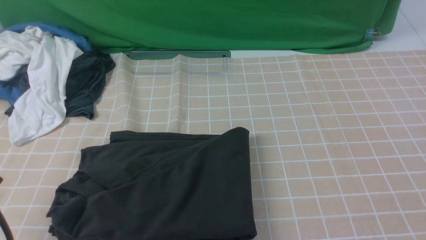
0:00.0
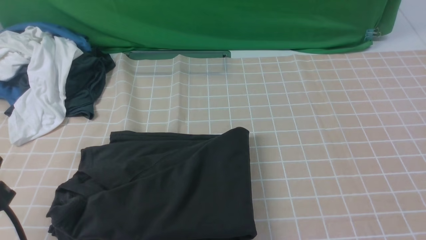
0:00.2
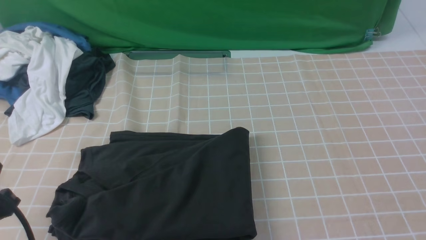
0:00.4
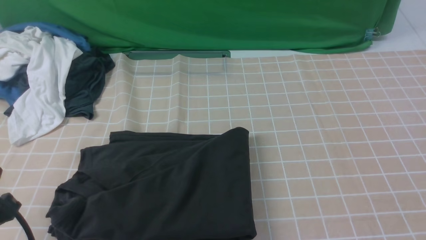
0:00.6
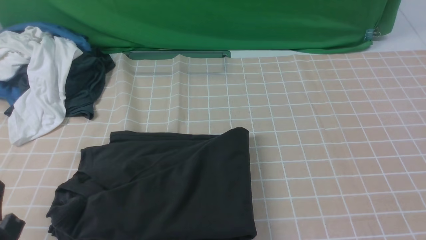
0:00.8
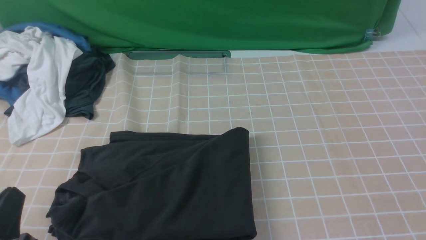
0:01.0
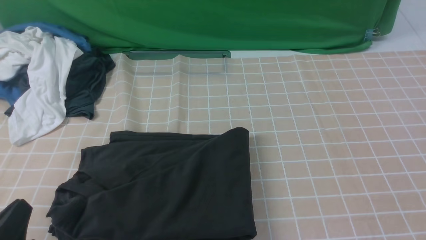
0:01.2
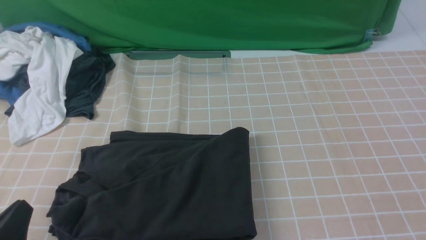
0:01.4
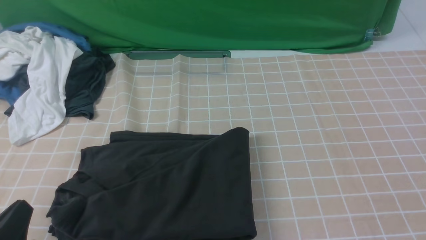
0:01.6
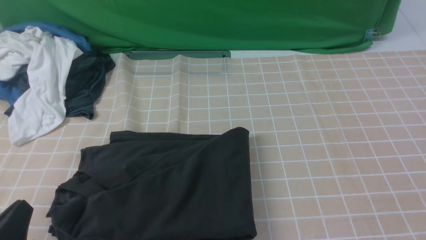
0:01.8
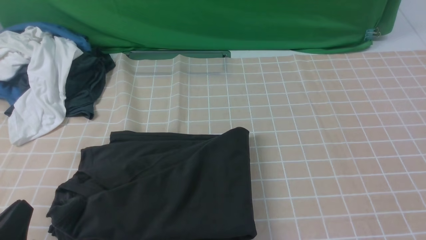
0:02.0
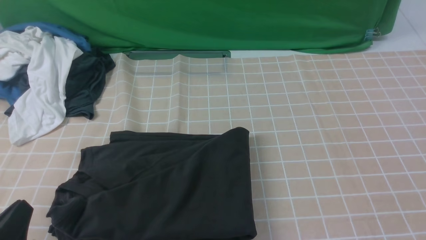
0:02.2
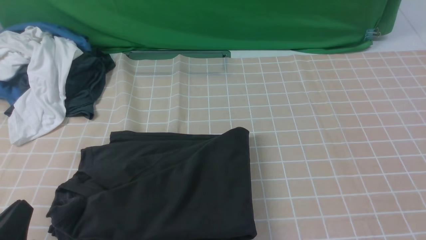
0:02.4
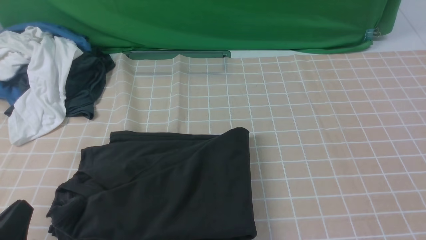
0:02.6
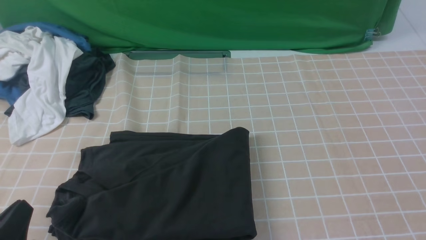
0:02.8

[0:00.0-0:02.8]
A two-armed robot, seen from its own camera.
0:00.0 to 0:01.4: The left gripper moves downward, approximately 10 cm.
0:01.4 to 0:02.8: Both grippers stay about where they are.
